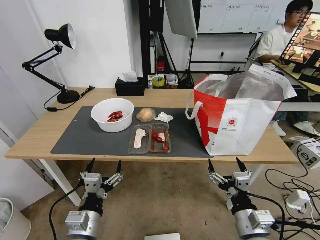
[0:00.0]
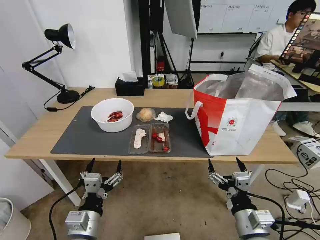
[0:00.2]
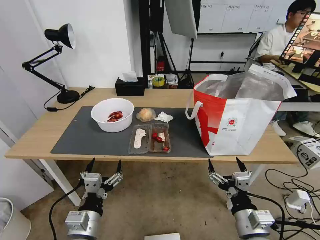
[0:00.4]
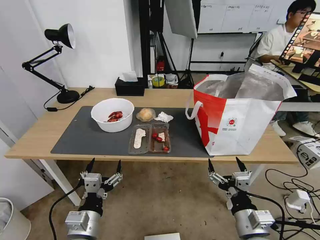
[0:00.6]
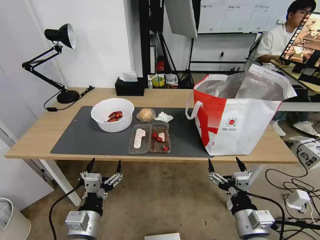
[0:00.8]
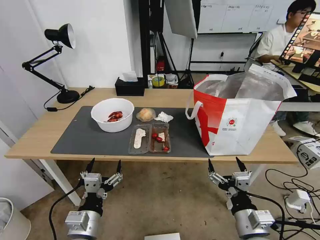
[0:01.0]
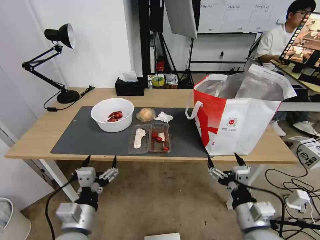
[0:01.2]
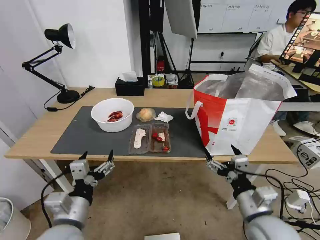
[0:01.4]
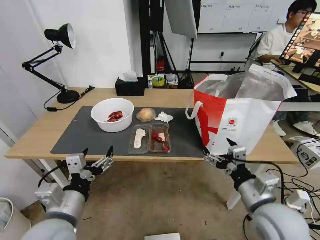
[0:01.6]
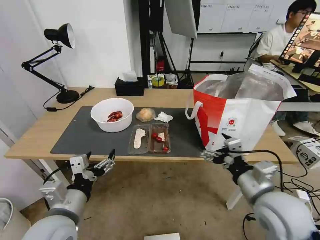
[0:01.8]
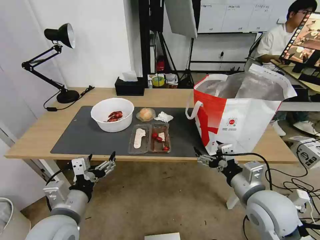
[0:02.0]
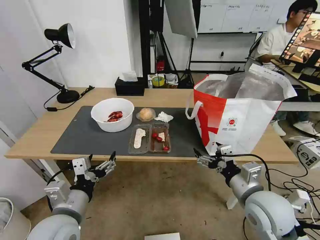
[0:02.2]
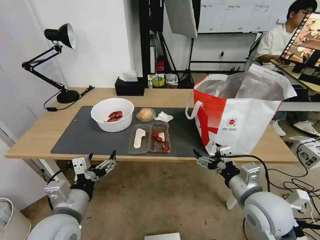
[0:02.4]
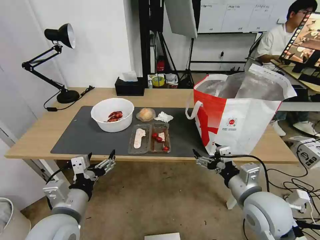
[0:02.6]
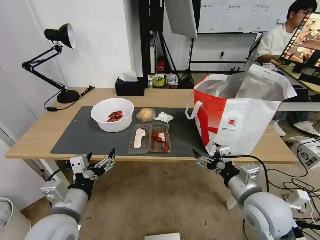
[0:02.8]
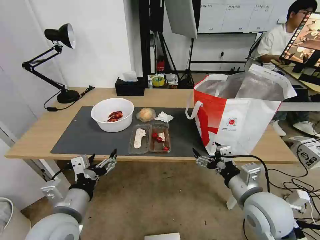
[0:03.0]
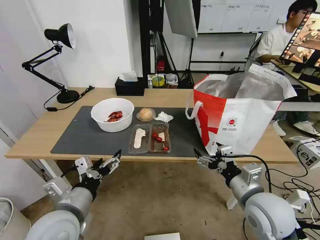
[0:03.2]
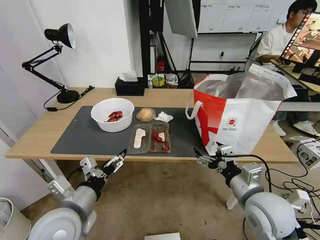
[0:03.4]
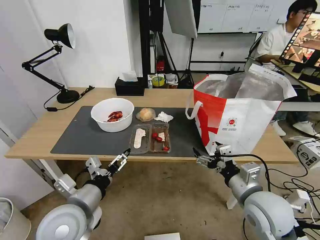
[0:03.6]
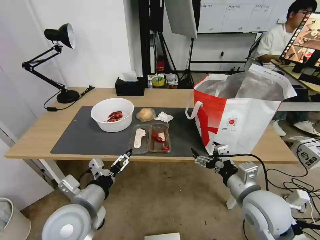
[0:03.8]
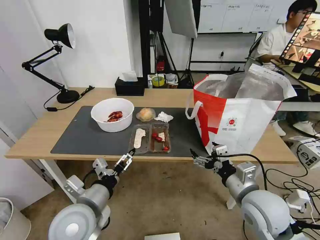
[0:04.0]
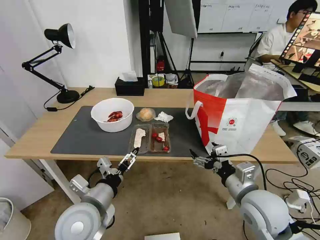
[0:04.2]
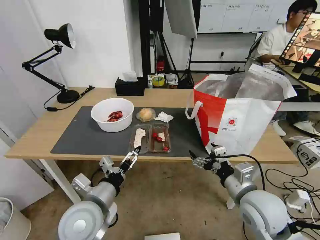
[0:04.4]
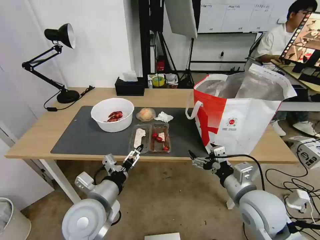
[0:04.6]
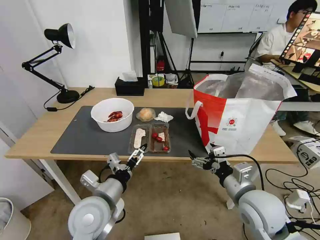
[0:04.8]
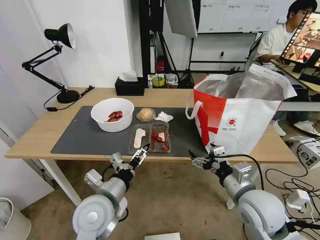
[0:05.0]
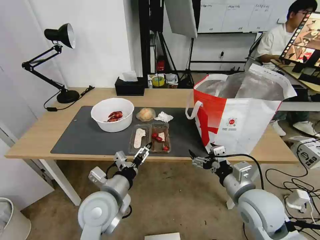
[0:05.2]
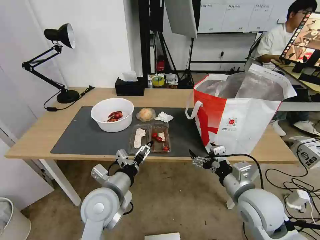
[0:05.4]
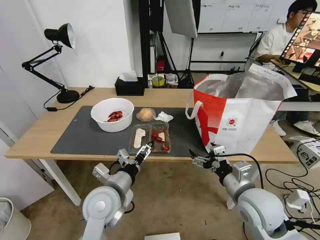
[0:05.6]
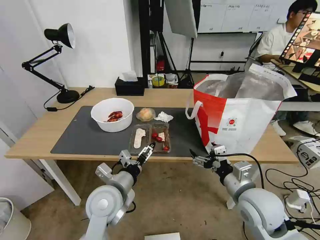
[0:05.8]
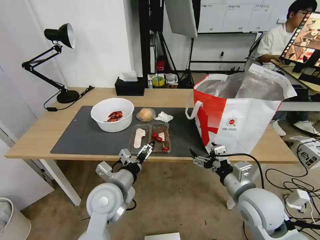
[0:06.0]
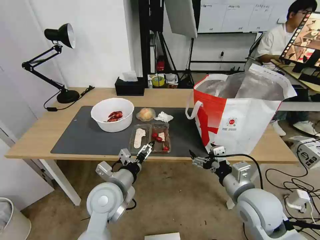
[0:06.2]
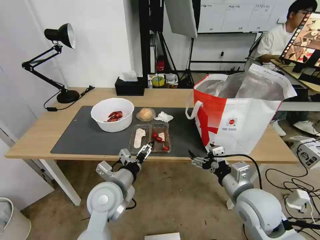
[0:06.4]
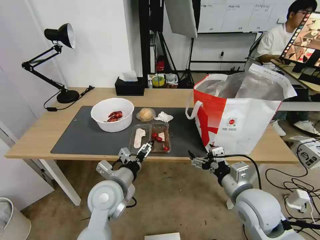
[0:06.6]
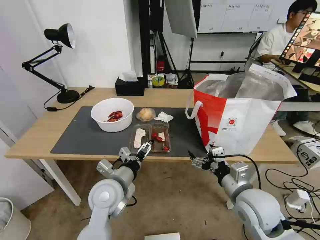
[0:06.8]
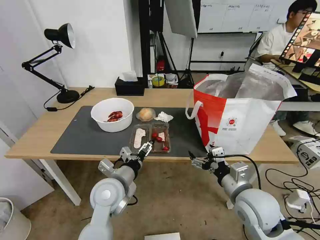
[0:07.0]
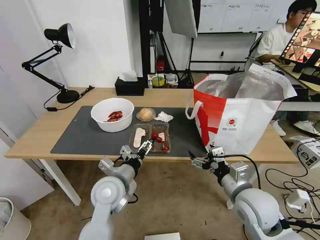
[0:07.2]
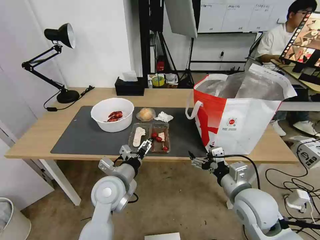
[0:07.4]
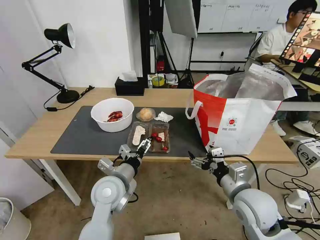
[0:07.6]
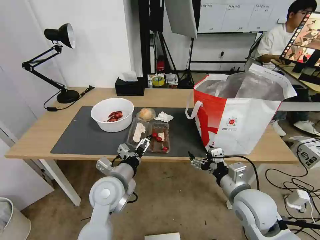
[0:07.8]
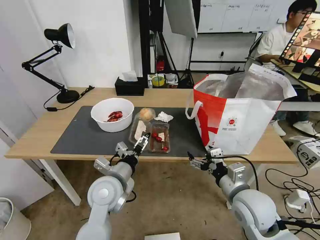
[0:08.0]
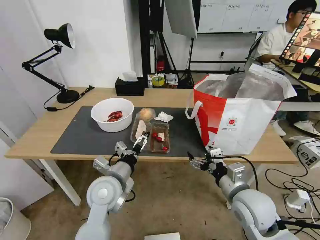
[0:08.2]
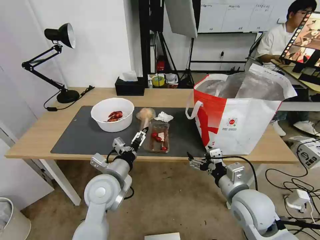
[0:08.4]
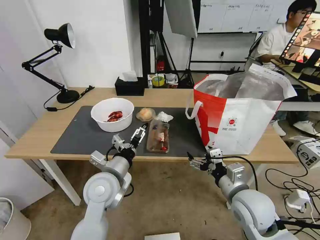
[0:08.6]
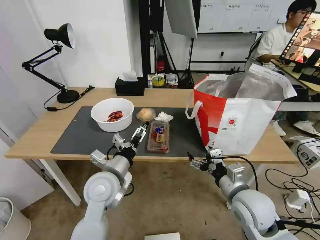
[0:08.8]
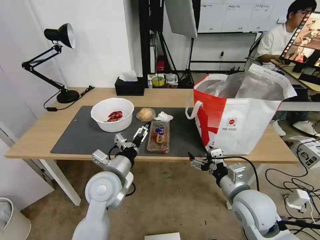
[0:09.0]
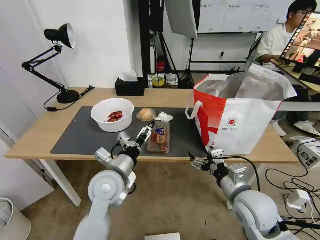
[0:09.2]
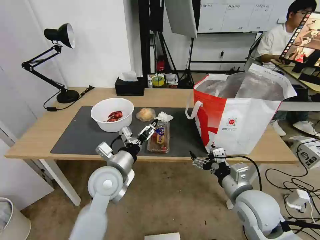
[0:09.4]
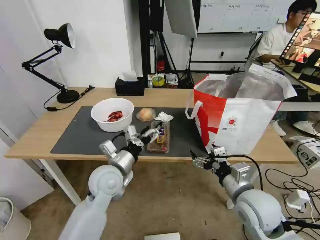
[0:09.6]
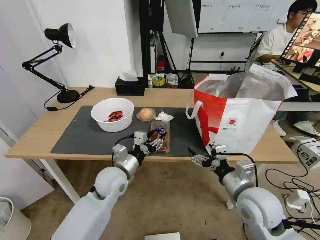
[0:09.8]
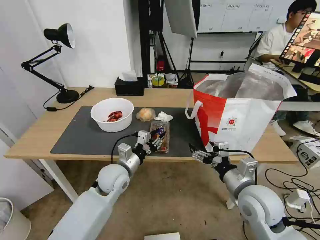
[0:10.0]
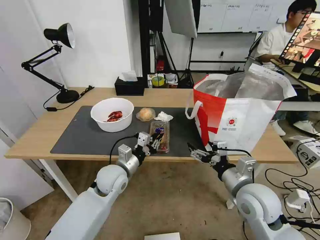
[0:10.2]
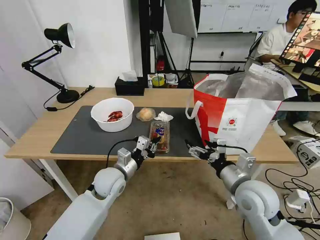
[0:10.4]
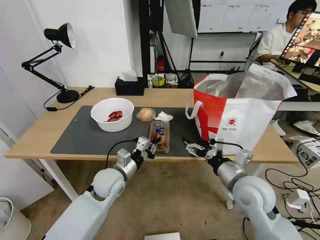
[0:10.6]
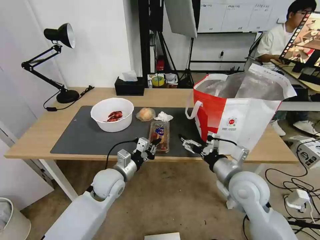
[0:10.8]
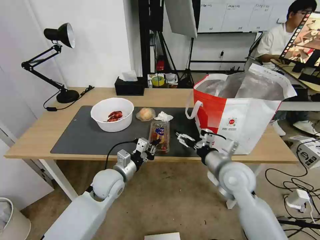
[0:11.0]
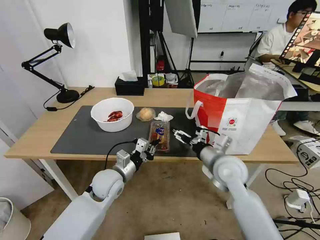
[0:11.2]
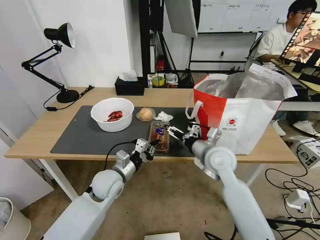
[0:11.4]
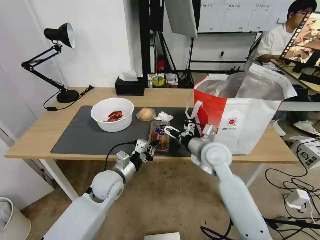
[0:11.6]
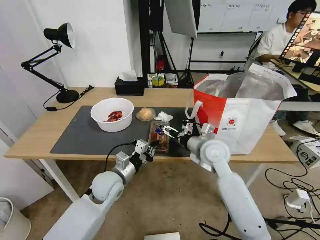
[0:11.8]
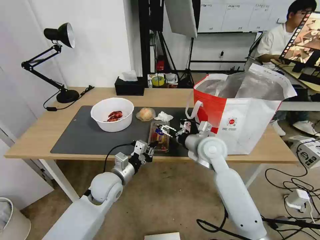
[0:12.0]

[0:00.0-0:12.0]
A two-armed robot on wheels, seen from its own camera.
Task of the whole recording: Pick up the trash from the table and place it into the takeout bag.
0:01.6 to 0:03.0: There are only small adjustments of the grippers.
0:03.0 to 0:04.4: The left gripper changes place by some 5 cm.
0:04.4 to 0:06.0: The left gripper goes roughly 5 cm forward.
0:06.0 to 0:09.0: There are only small adjustments of the grippers.
0:09.0 to 0:10.4: The left gripper heads downward and forward, covering some 10 cm, and closes its fingers.
0:10.4 to 0:12.0: The right gripper shifts about 20 cm forward and to the left.

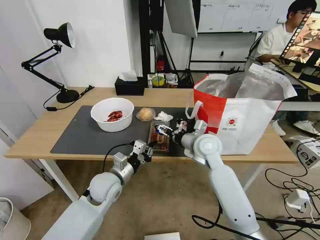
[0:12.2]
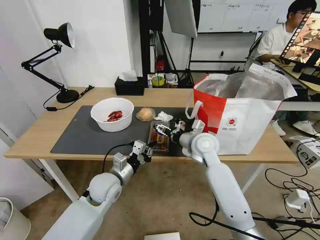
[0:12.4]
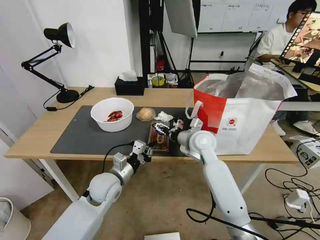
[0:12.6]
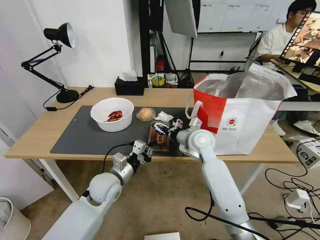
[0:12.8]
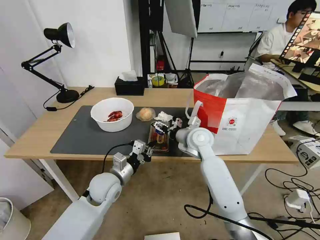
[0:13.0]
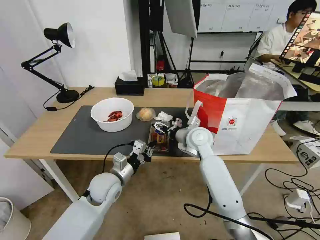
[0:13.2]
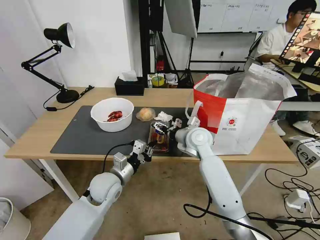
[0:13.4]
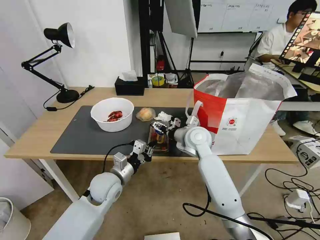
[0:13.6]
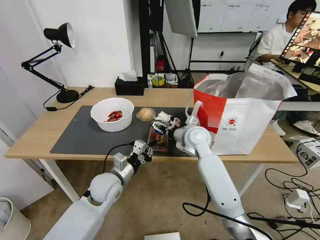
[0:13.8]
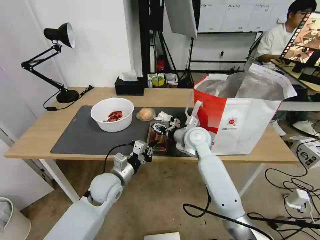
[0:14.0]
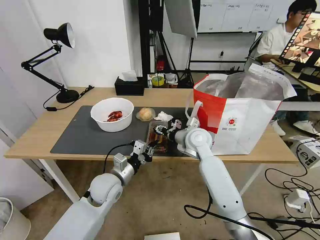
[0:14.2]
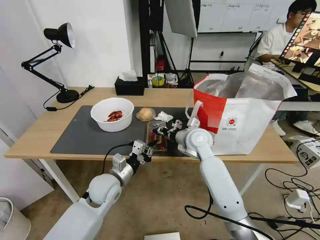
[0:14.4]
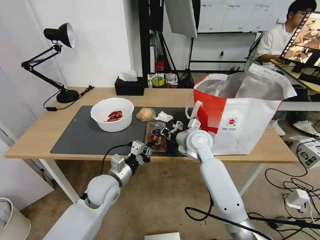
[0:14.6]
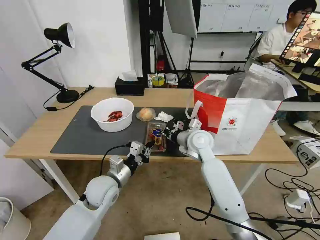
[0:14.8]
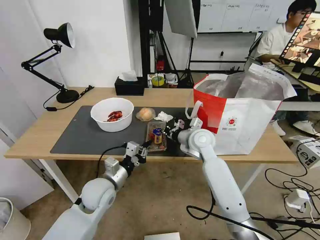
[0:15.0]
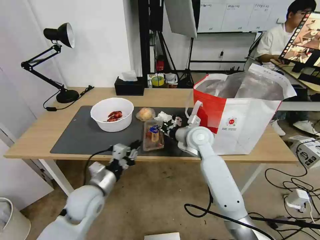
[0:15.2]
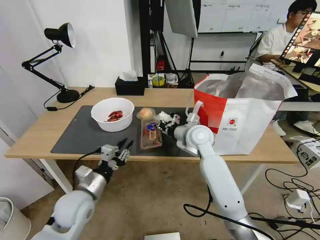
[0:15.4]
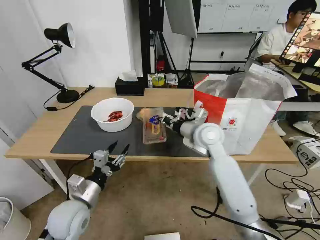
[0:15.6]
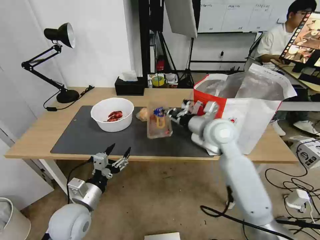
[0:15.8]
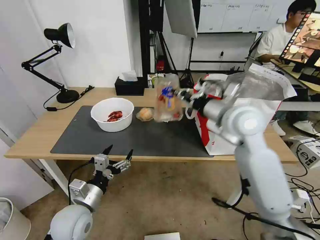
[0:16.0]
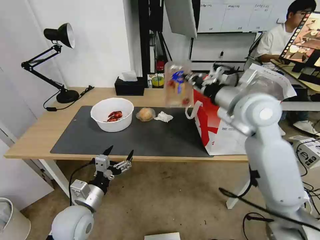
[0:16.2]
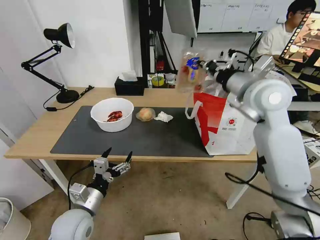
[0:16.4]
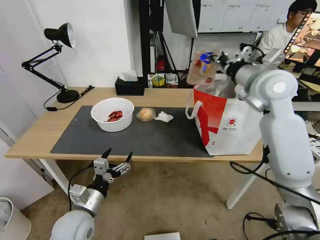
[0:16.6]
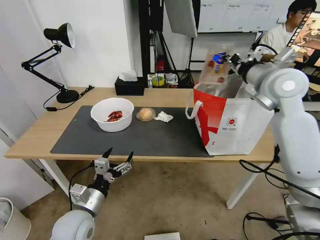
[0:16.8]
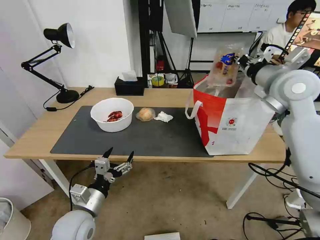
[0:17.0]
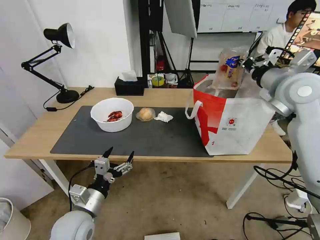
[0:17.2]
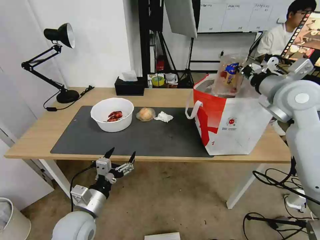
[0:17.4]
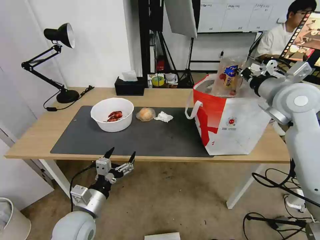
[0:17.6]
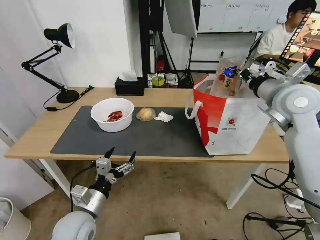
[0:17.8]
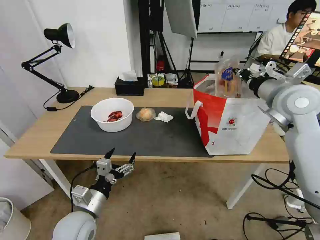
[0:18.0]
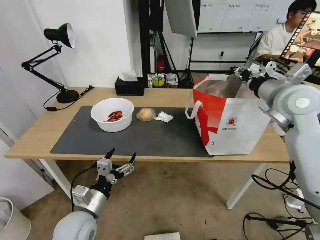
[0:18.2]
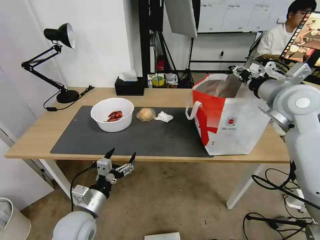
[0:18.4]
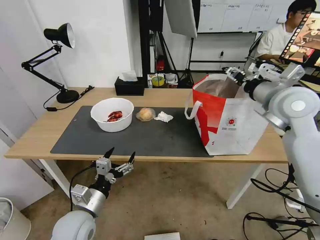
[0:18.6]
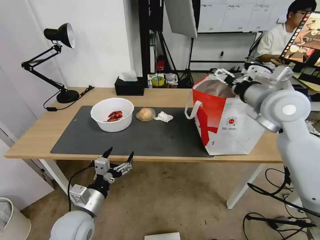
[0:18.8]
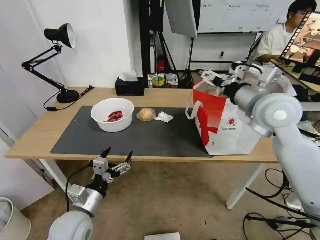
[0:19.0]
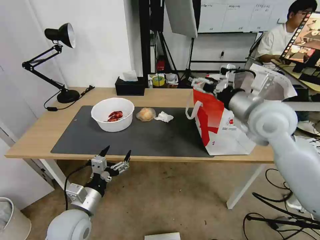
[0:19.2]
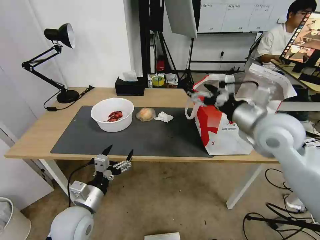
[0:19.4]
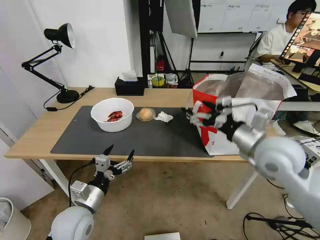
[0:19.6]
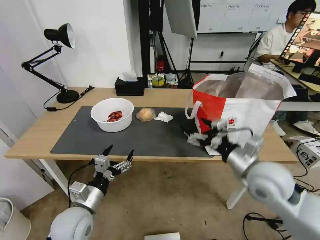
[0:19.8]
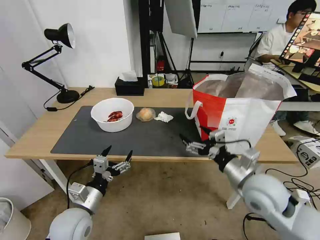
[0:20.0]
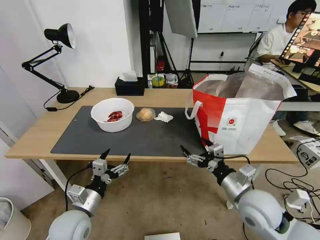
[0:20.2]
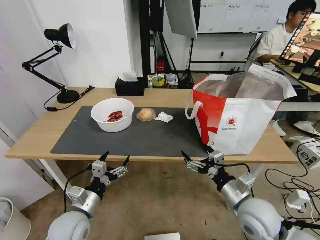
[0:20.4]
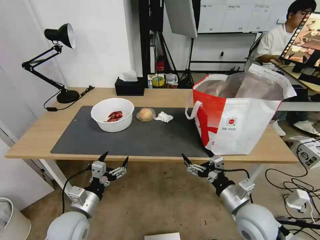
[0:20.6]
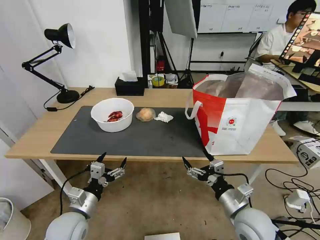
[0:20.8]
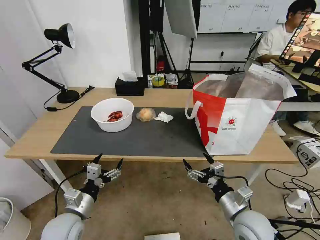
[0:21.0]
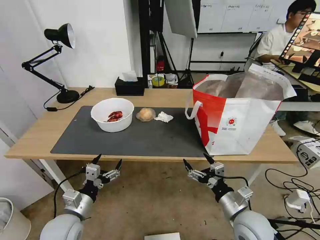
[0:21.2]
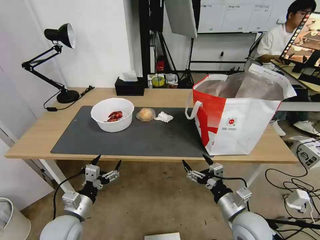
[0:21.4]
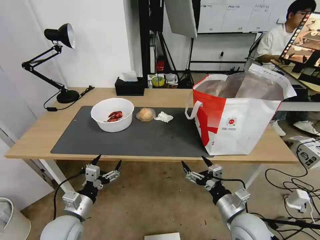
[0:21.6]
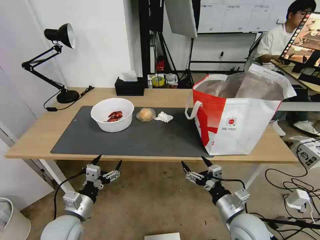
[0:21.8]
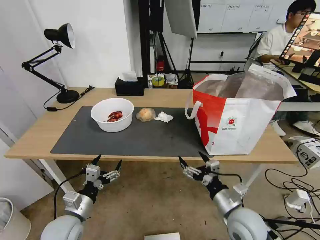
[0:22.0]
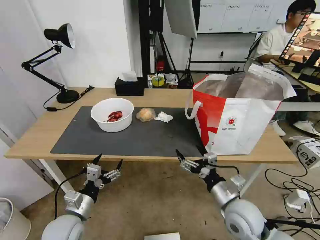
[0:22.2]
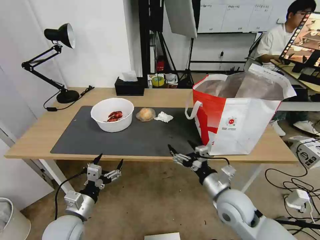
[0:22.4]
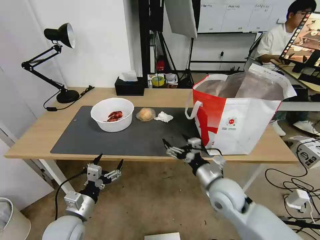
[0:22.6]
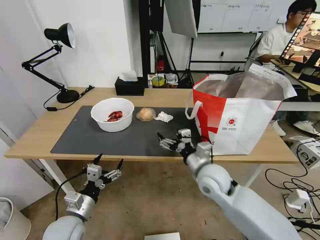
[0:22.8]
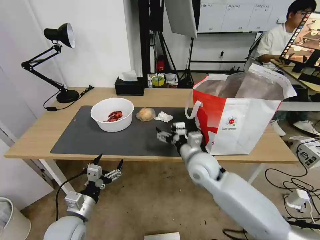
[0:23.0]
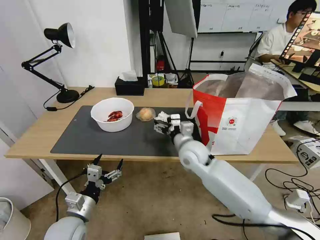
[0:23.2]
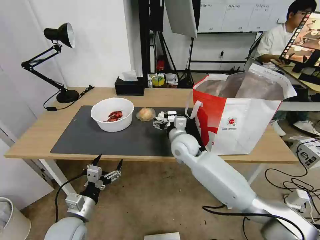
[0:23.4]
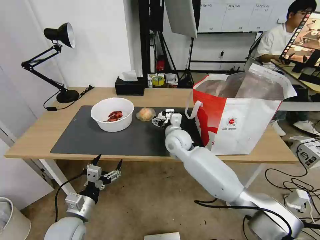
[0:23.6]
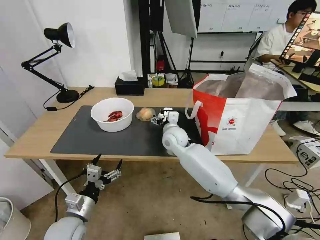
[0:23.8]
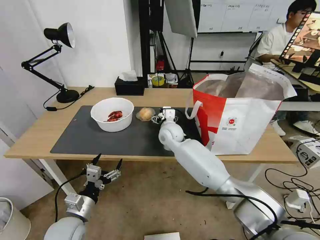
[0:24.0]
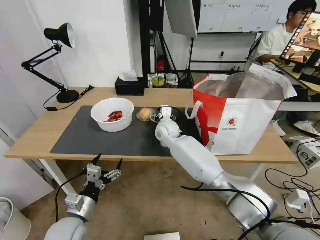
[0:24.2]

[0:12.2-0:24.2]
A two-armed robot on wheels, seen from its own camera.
Task of the whole recording: Pick up the trash from the table and place it into the takeout bag.
0:12.2 to 0:13.8: There are only small adjustments of the grippers.
0:13.8 to 0:15.2: The left gripper shifts by approximately 5 cm. The right gripper closes.
0:15.2 to 0:16.6: The left gripper travels backward by approximately 5 cm, and opens its fingers, while the right gripper travels upward and to the right by about 25 cm.
0:16.6 to 0:18.2: The right gripper goes roughly 5 cm to the right, and opens its fingers.
0:18.2 to 0:19.8: The right gripper is displaced backward, downward and to the left by approximately 20 cm, and opens up.
0:19.8 to 0:21.2: The left gripper moves roughly 5 cm. Meanwhile the right gripper travels downward and backward by approximately 15 cm.
0:21.2 to 0:22.6: The right gripper goes roughly 10 cm forward and to the left.
0:22.6 to 0:24.2: The right gripper travels forward and to the left by approximately 30 cm.
